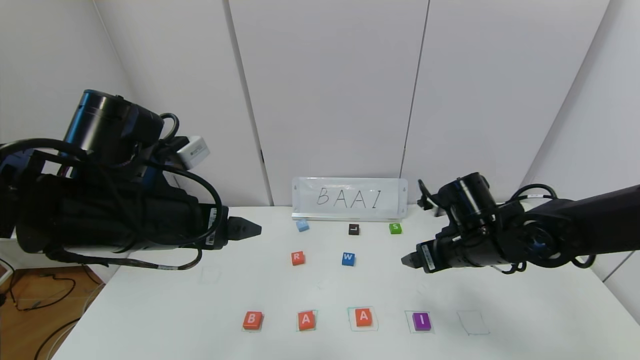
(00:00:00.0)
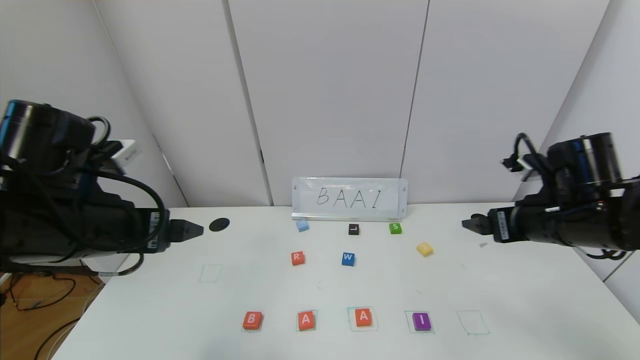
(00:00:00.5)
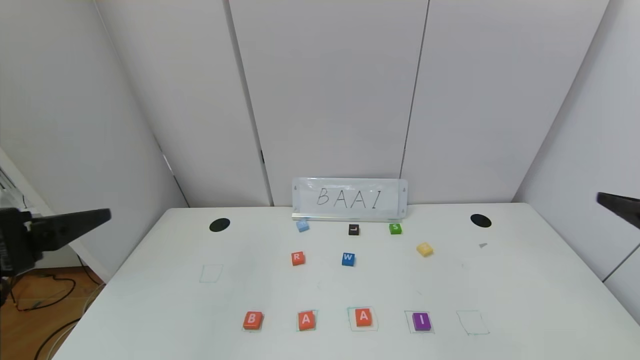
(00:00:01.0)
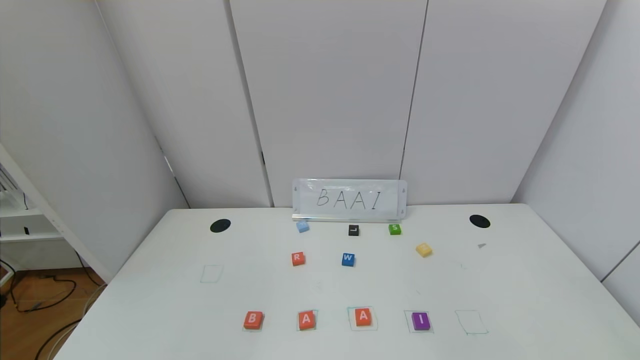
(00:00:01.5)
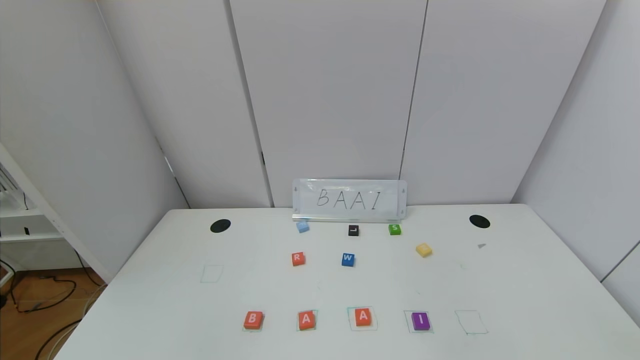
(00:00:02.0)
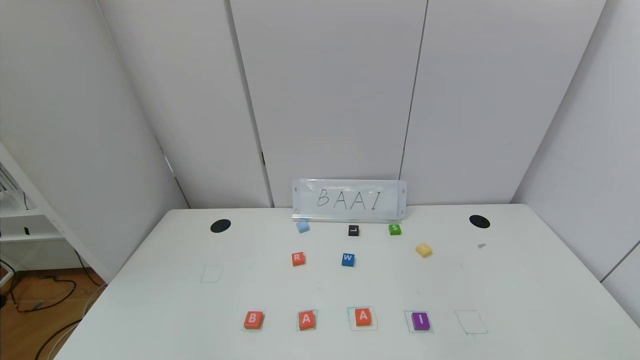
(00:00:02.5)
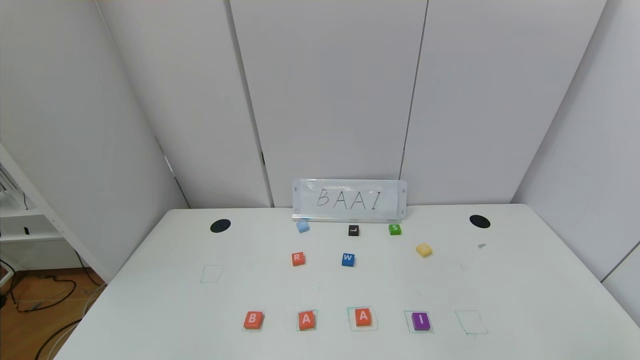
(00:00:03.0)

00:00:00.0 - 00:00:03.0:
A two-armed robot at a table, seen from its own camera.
Task of the whole recording: use the gripper to find blocks with the letters b, a, a, and i on the table and arrange them into BAAI, then find r and N and turn the arranged baai into brian.
00:00:00.0 - 00:00:01.5: The right gripper travels backward, to the right and upward by some 40 cm; the left gripper shifts approximately 25 cm backward and to the left.
